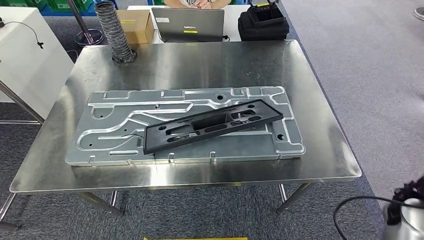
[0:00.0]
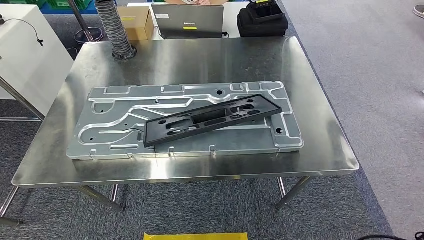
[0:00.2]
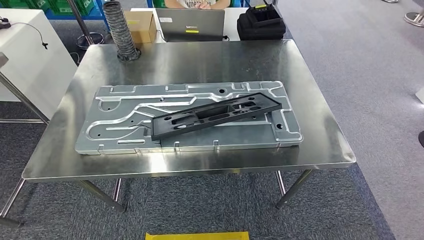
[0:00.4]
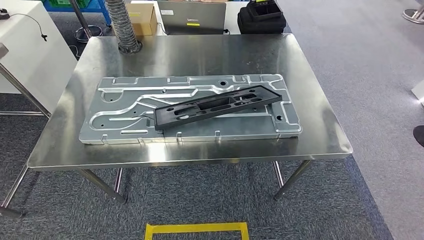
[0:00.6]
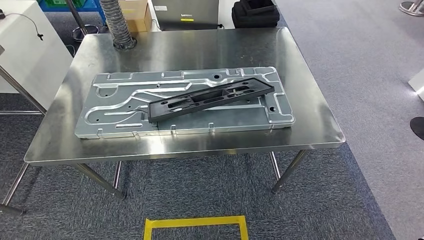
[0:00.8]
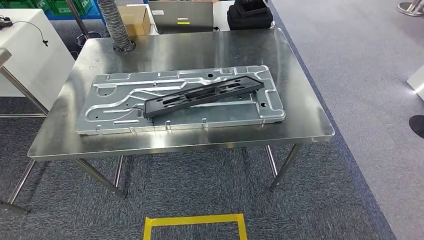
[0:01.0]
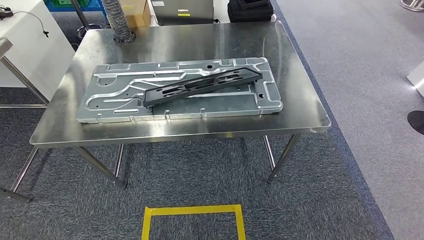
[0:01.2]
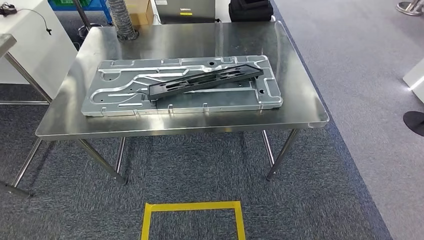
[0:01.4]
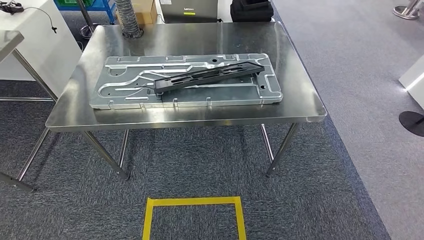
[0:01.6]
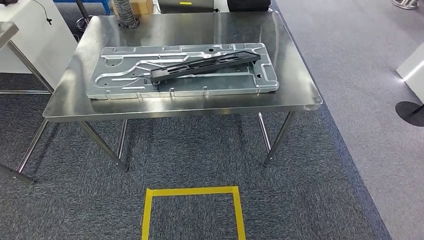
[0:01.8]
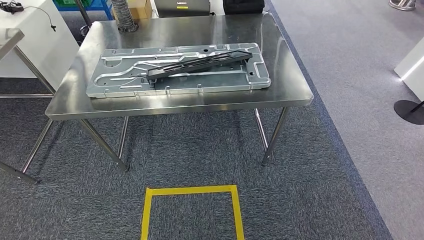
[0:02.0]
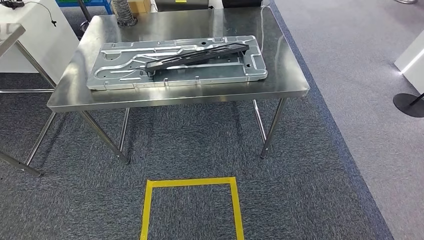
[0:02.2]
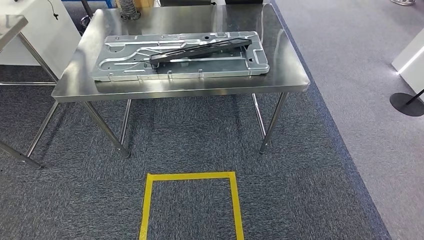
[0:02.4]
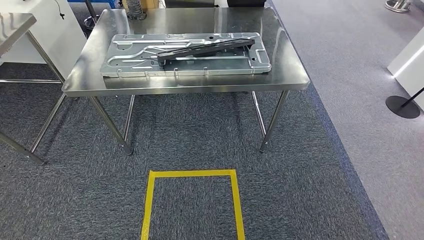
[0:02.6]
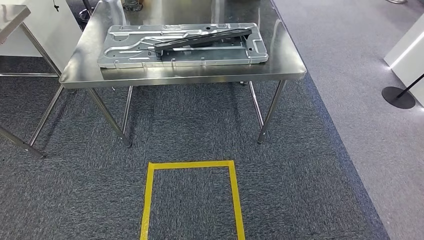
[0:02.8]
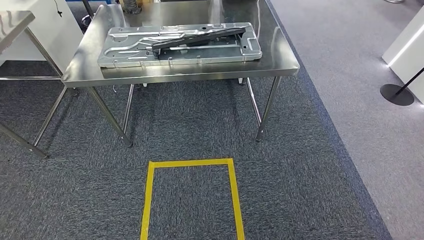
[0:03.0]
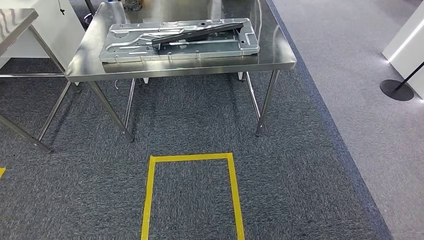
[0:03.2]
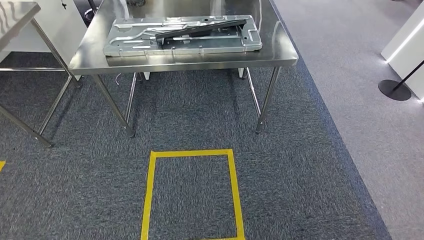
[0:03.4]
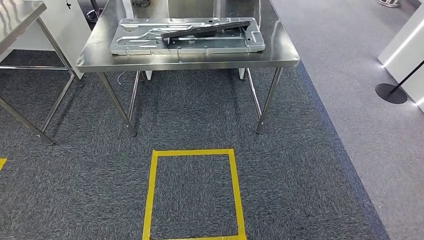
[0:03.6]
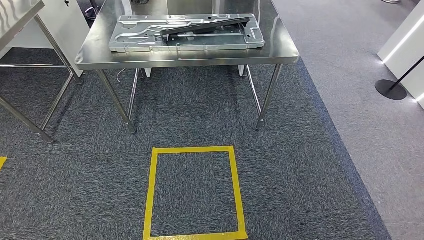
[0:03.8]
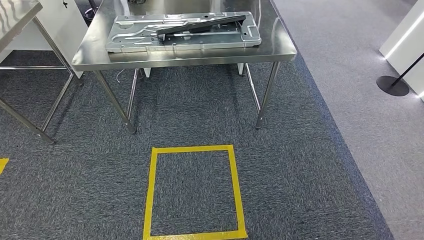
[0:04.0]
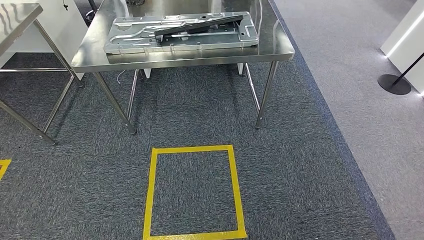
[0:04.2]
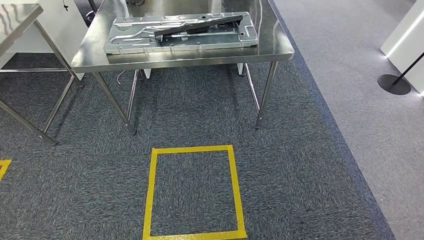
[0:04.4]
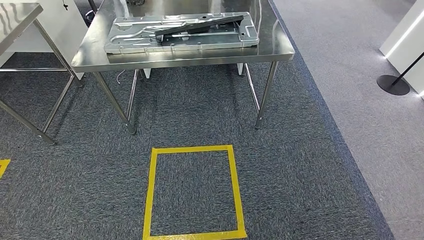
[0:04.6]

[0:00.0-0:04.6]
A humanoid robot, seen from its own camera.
Step, 0:01.2 to 0:04.6: Move to the initial position of the shelf.

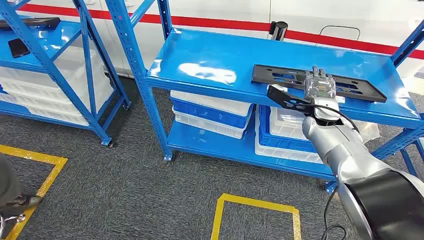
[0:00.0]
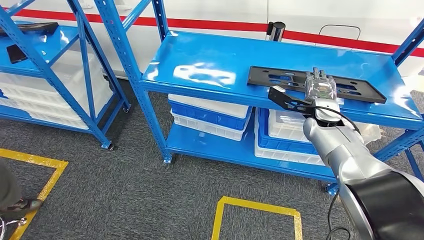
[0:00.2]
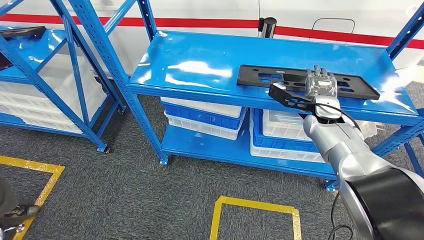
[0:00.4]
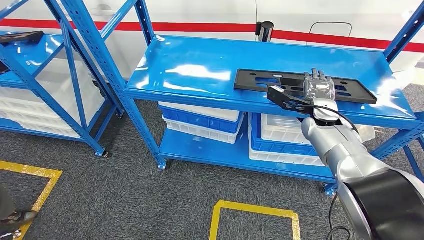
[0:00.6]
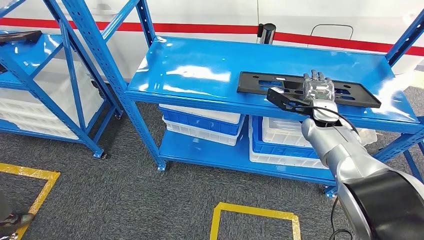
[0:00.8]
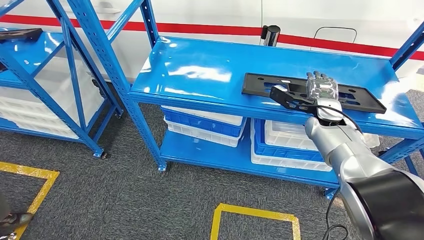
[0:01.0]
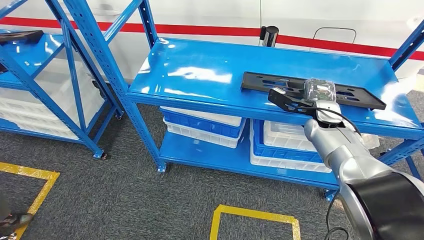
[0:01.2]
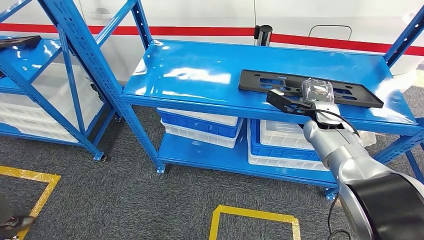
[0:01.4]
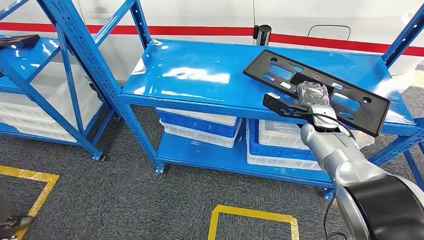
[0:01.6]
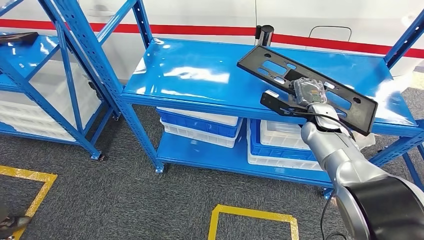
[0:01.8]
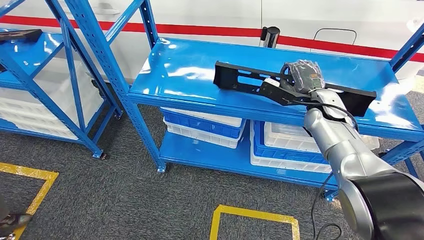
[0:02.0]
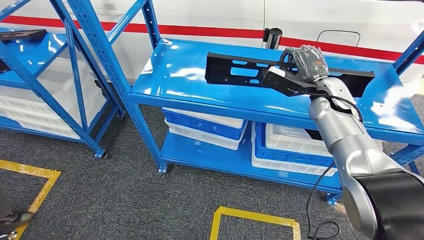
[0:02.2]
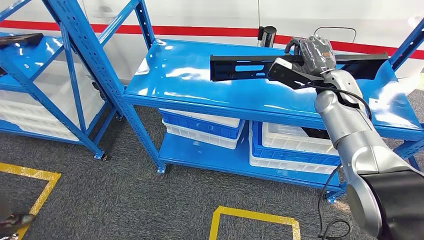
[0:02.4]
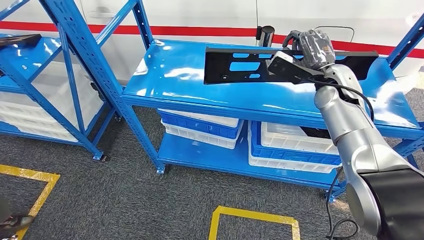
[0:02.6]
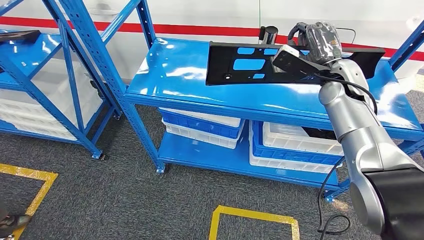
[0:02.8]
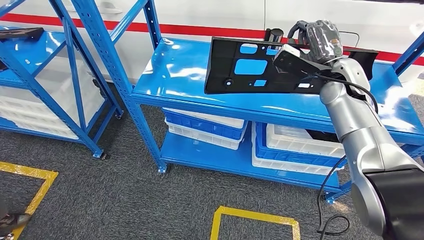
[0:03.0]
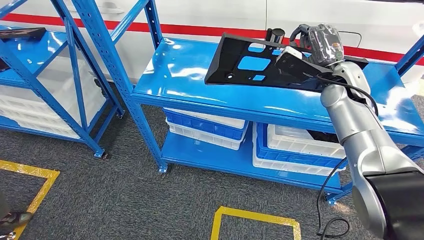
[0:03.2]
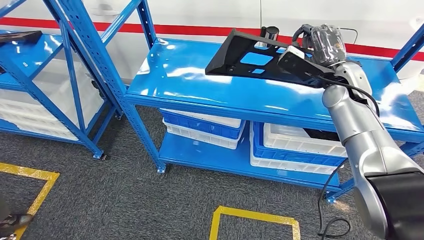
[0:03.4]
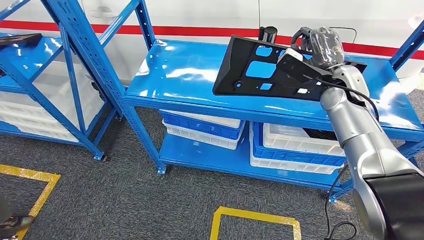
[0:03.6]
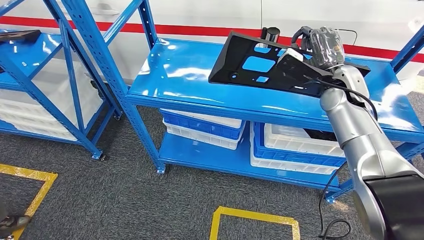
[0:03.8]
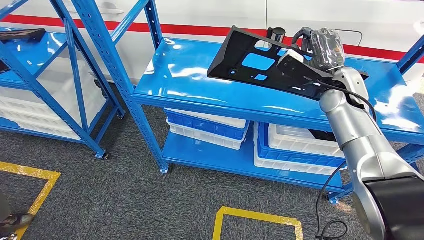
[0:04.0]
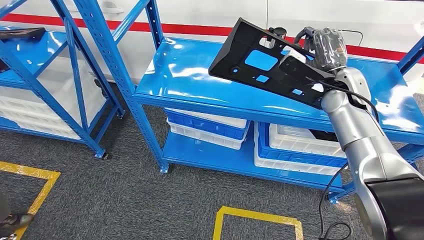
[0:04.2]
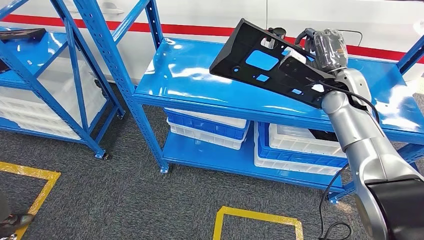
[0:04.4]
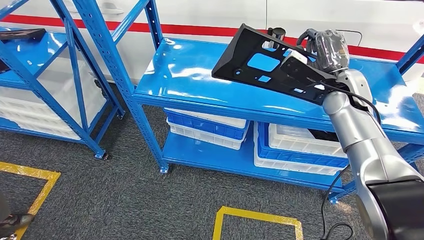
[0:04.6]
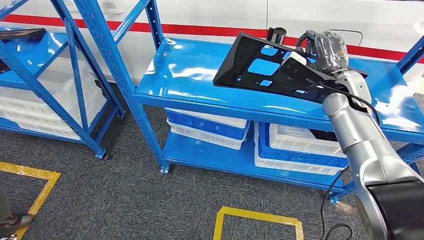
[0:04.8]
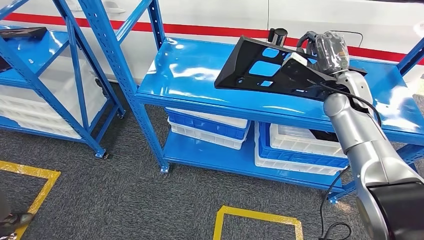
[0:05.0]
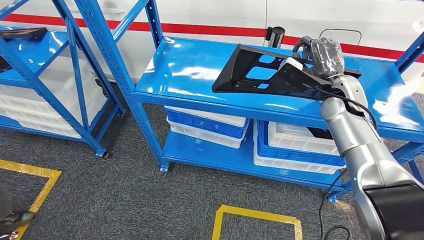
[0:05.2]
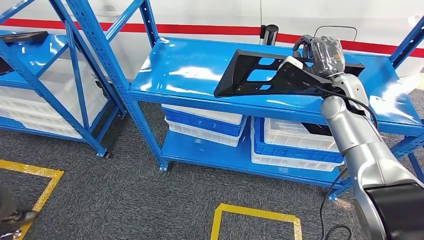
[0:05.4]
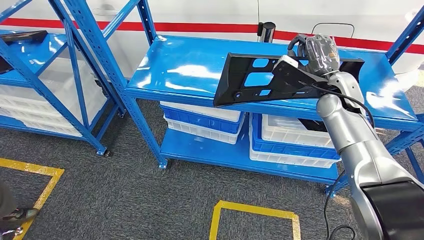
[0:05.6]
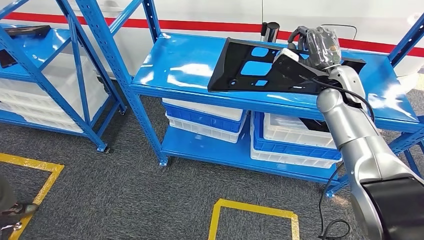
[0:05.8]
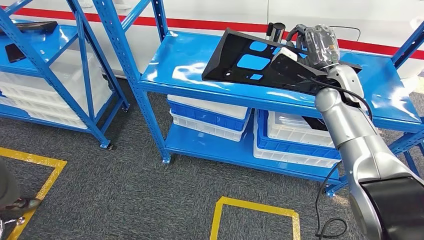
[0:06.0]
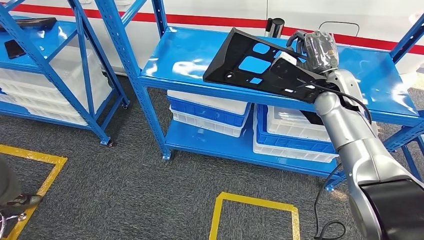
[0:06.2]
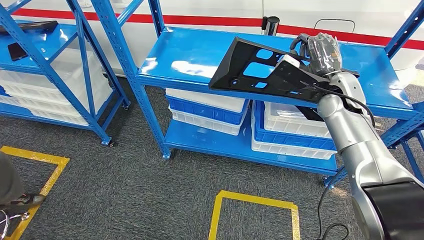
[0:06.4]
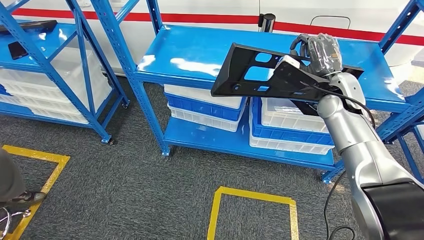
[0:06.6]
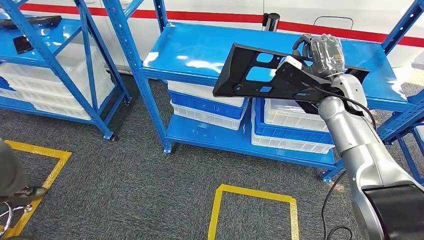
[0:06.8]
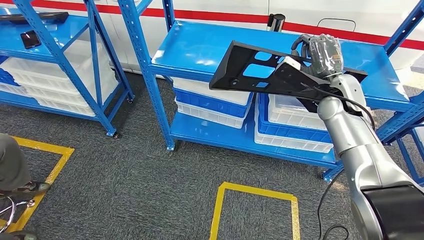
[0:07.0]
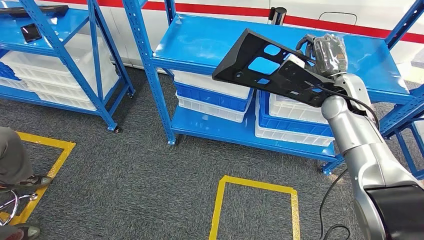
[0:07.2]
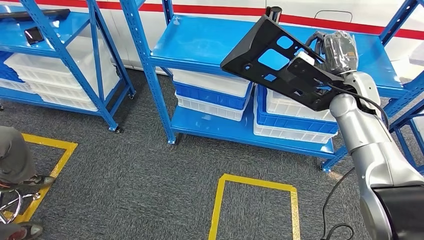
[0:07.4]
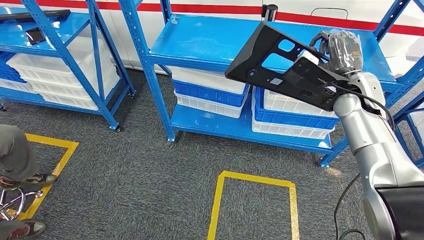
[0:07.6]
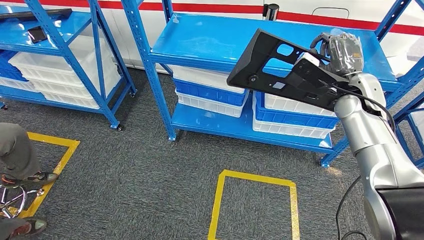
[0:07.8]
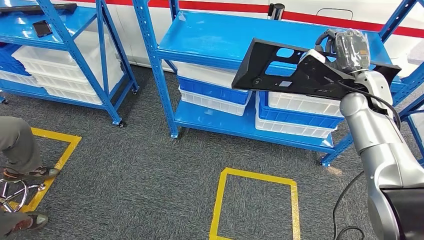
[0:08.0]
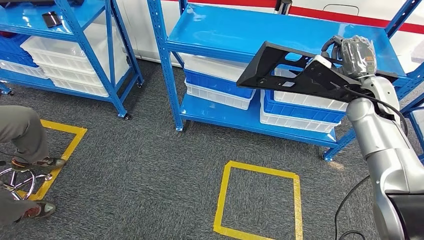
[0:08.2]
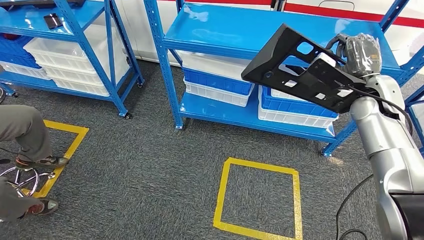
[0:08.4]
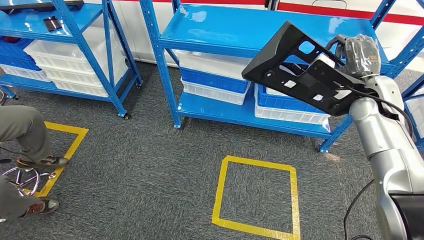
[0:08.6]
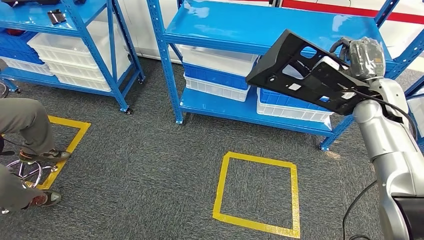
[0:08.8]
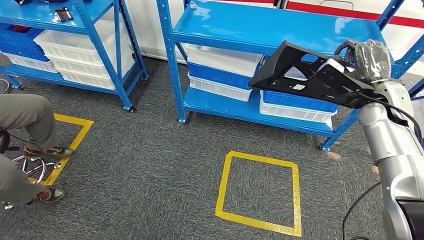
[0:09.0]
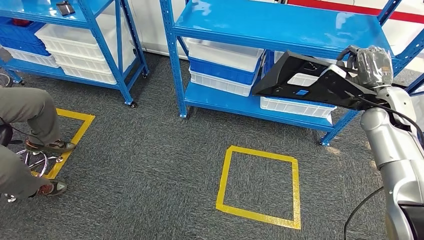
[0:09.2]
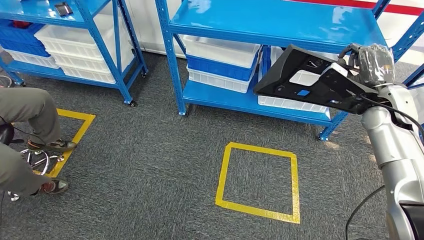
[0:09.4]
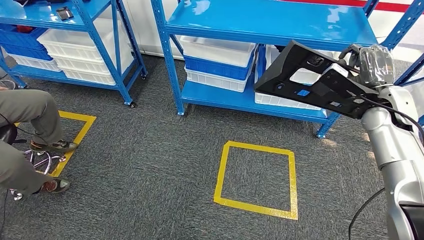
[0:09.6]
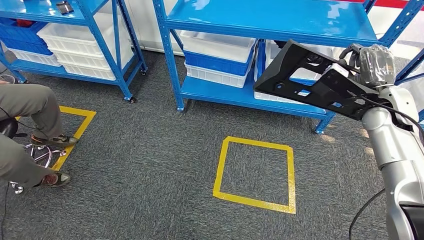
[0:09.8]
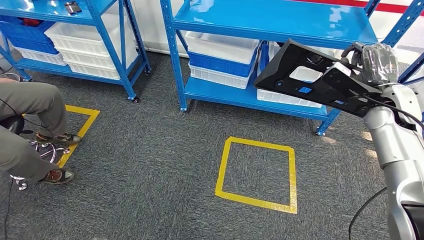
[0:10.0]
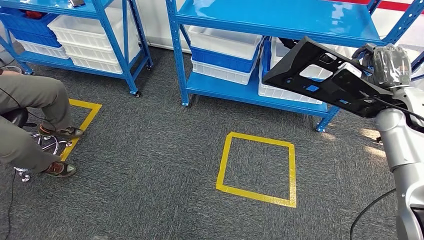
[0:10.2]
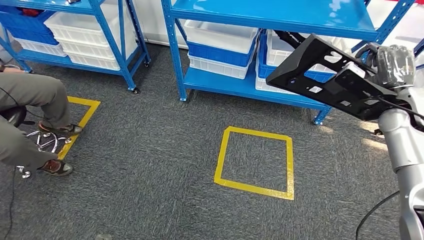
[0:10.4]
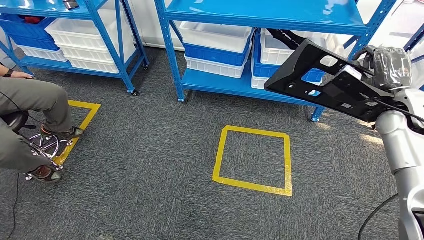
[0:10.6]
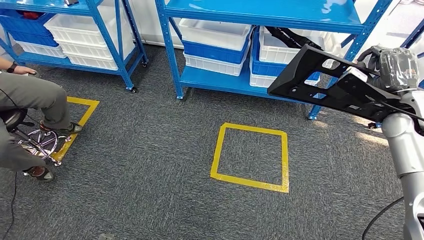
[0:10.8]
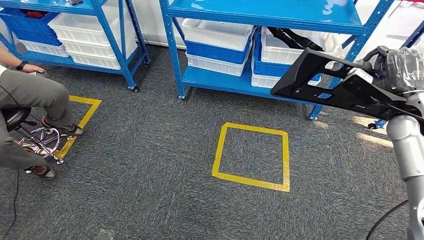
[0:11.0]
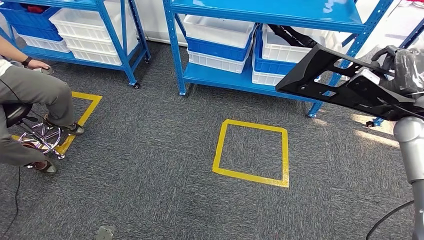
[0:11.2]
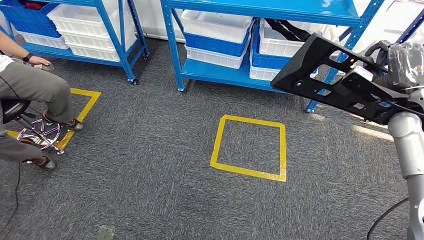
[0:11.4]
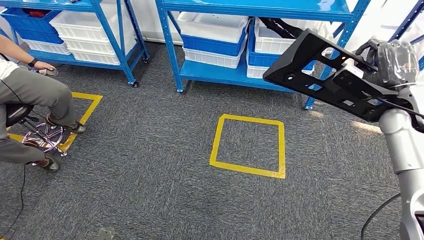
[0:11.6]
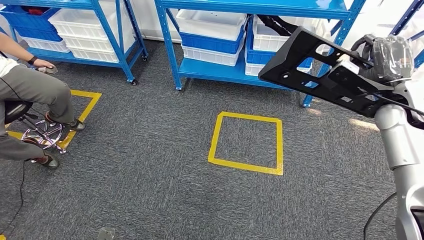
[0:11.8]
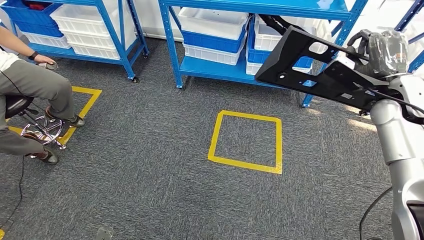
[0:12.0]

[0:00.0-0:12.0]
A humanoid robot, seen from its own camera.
Step, 0:00.0 to 0:06.6: Pick up the large material from the shelf.
